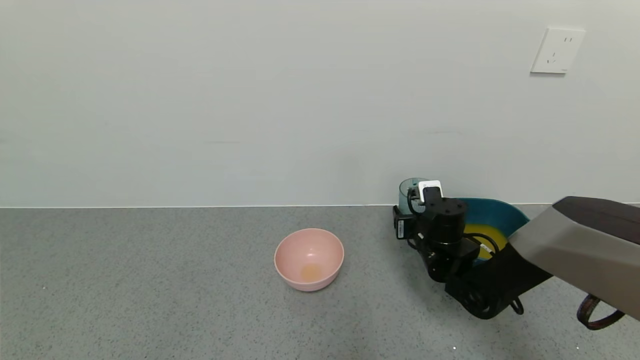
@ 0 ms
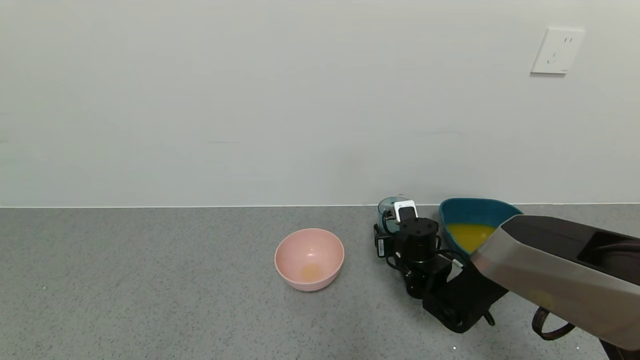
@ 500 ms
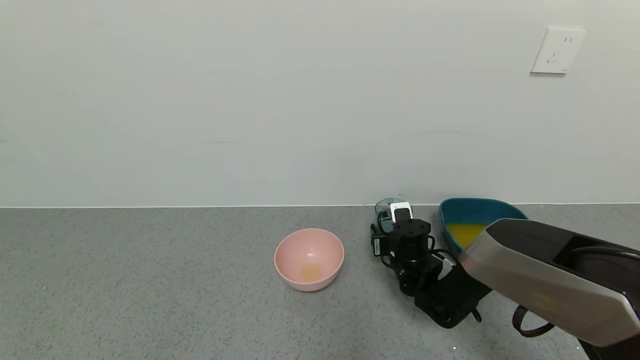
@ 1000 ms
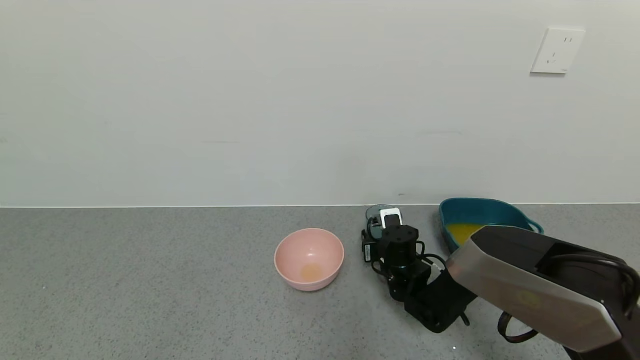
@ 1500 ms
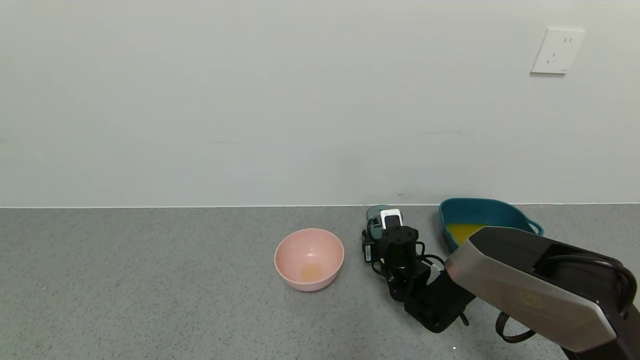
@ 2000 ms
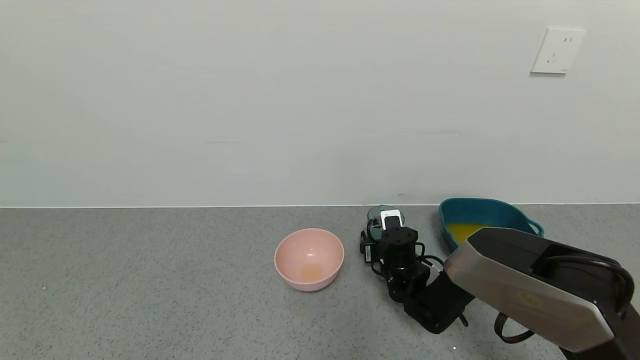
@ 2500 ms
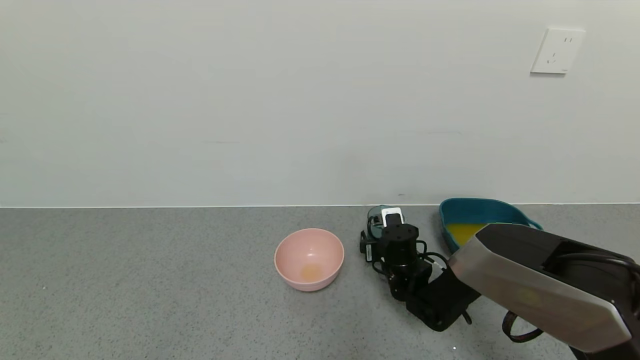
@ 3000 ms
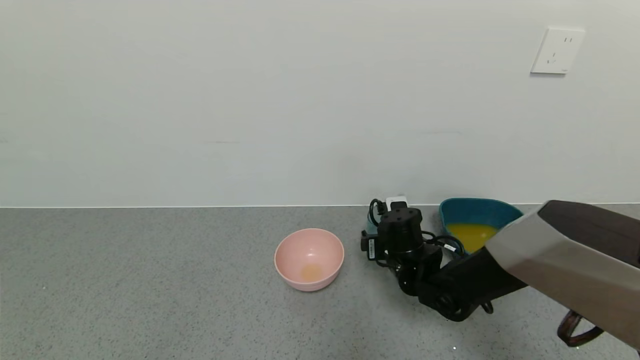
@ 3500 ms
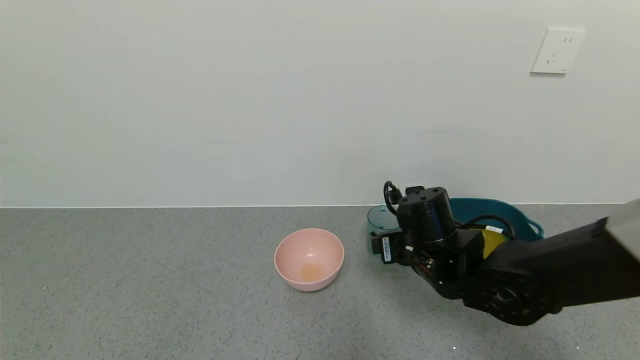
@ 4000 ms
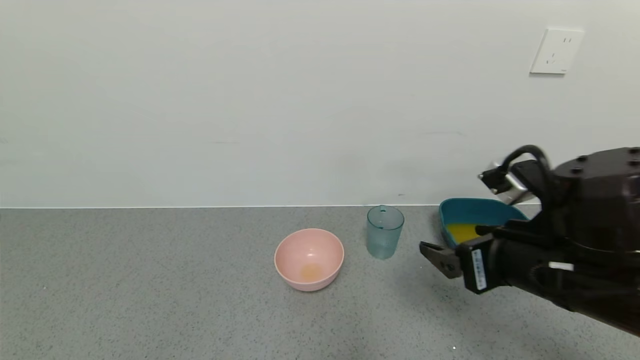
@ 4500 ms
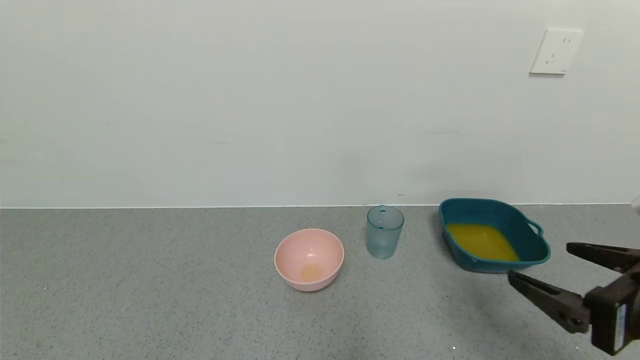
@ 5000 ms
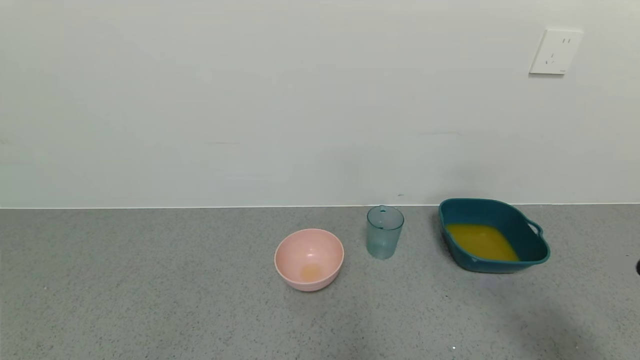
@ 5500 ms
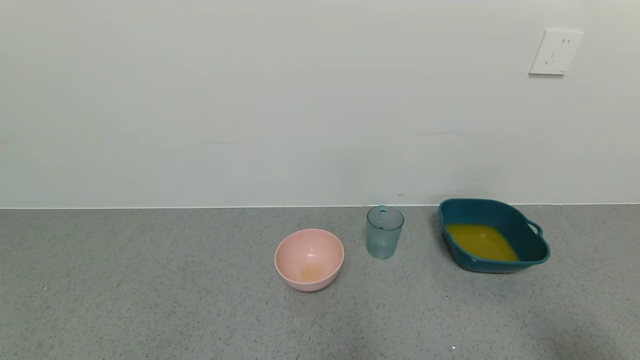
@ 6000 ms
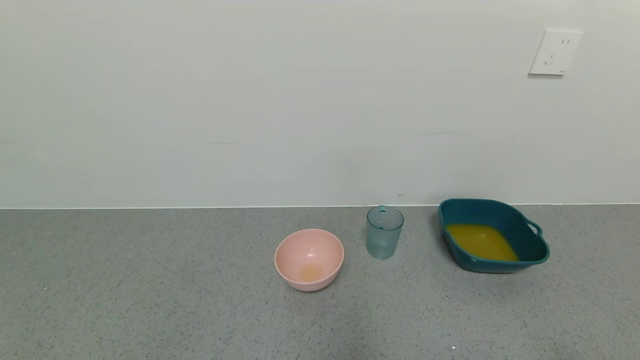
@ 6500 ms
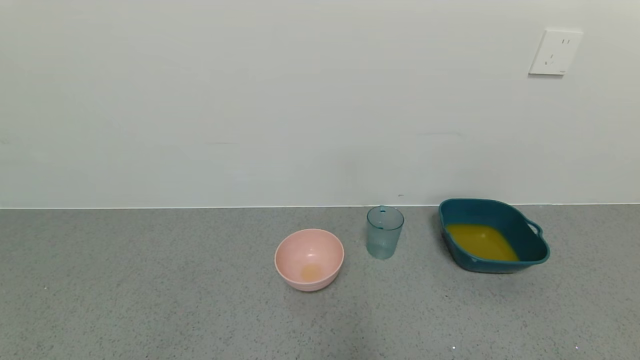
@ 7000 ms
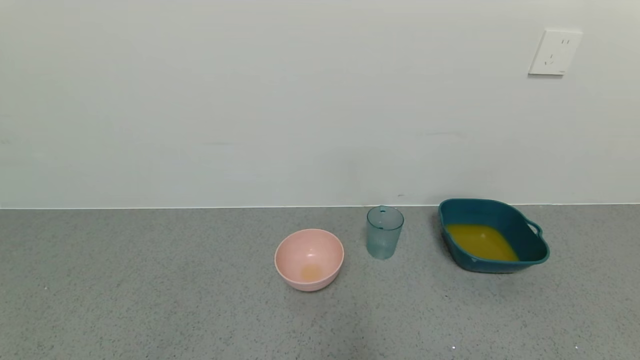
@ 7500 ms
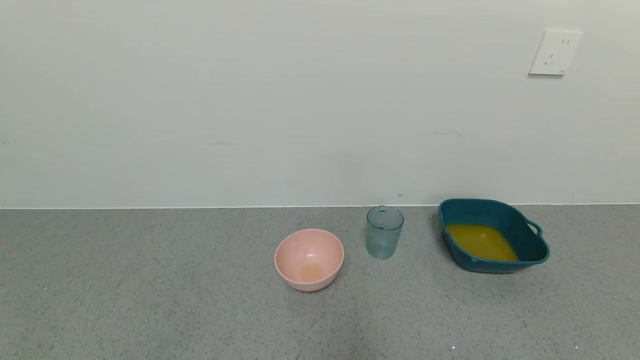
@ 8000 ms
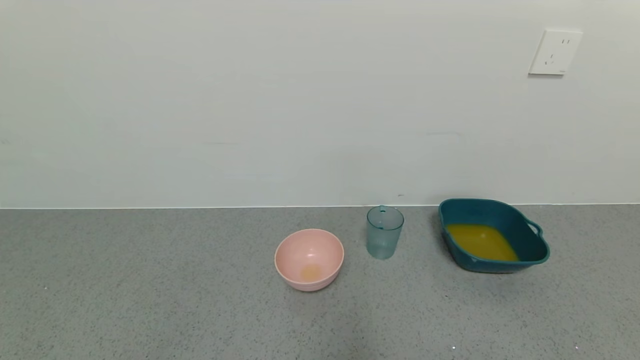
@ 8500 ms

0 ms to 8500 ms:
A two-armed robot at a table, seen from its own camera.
Task of the whole recording: use a gripper to pick up the cup and pour the liquid into a bowl or tray.
Step, 0 ms to 2500 ms: Place blue cup with orange juice on the table with right gripper.
0 ms to 2000 ms: The right gripper heads downward and to the left, covering roughly 10 cm.
2000 ms to 4000 ms: The right gripper moves upward and backward, approximately 15 cm, and opens.
4000 ms to 6500 ms: The right gripper shifts about 40 cm backward and to the right.
